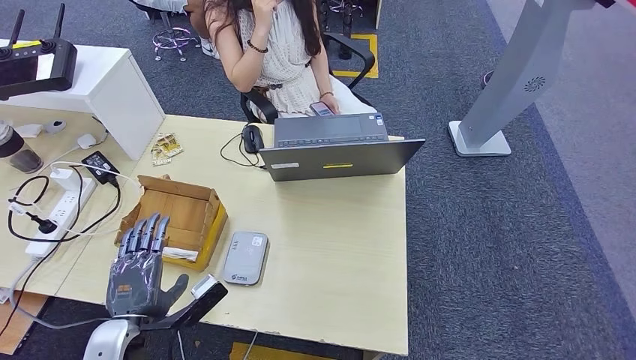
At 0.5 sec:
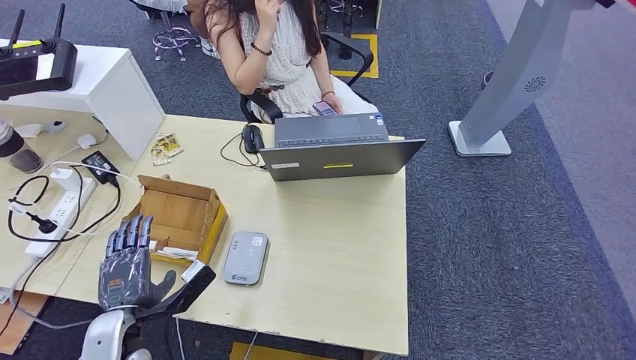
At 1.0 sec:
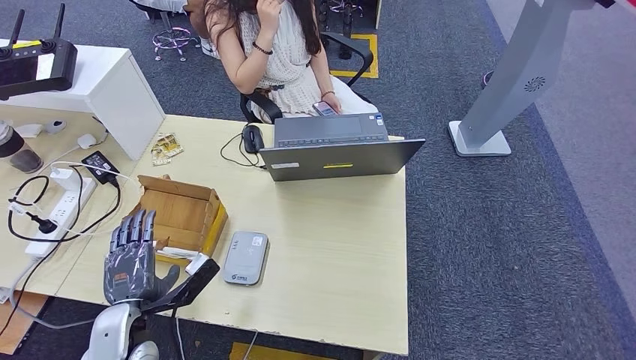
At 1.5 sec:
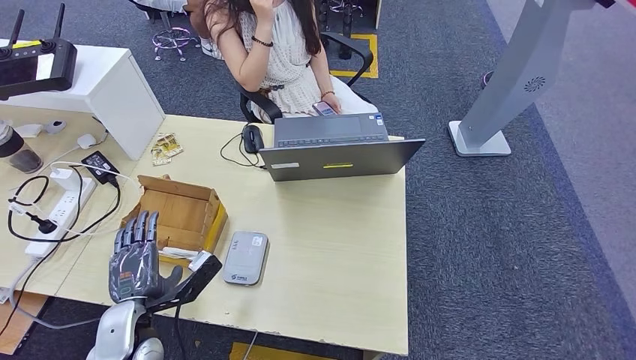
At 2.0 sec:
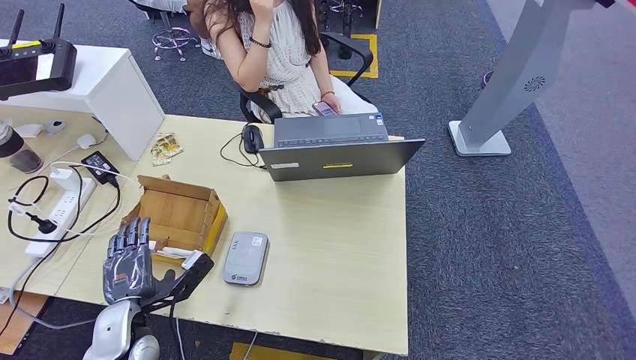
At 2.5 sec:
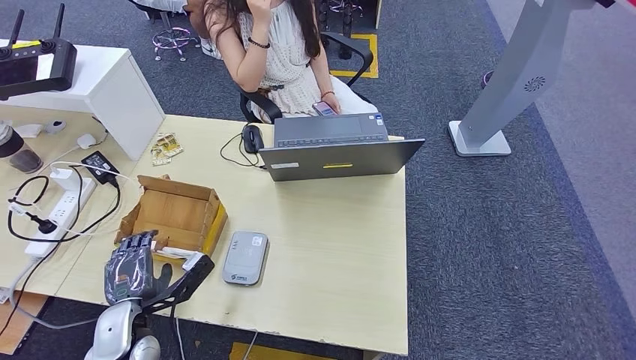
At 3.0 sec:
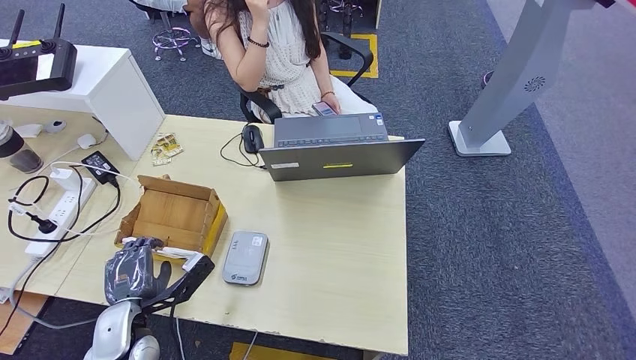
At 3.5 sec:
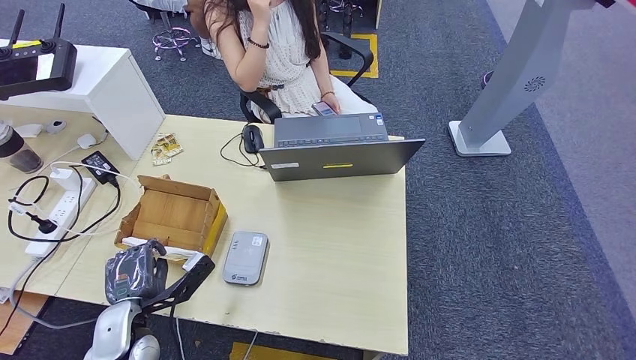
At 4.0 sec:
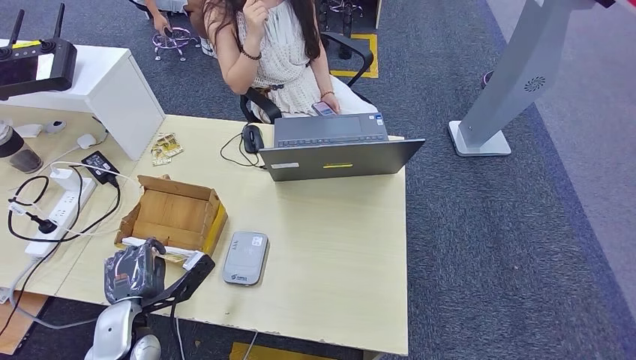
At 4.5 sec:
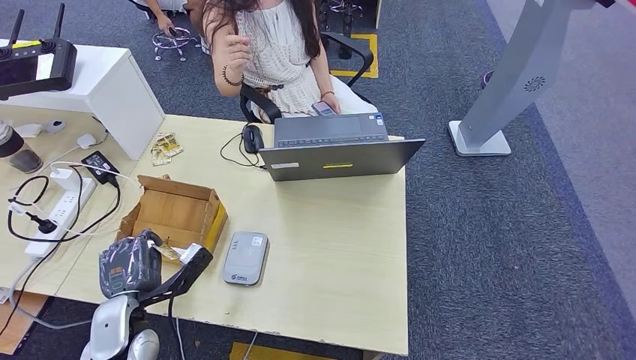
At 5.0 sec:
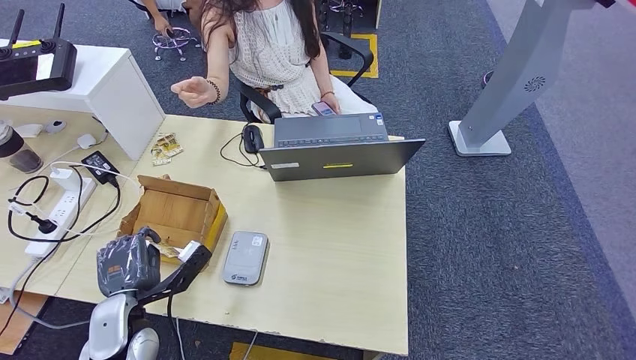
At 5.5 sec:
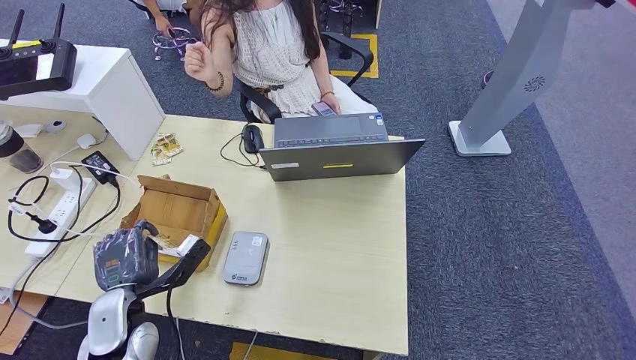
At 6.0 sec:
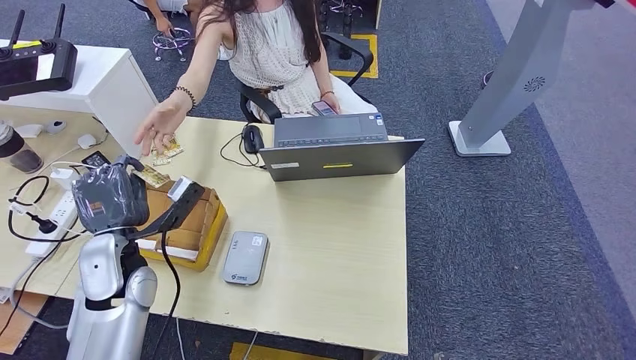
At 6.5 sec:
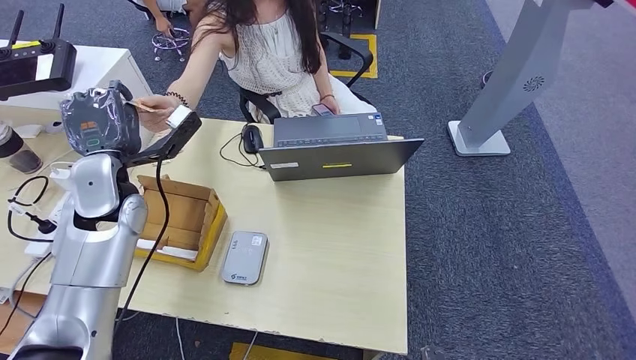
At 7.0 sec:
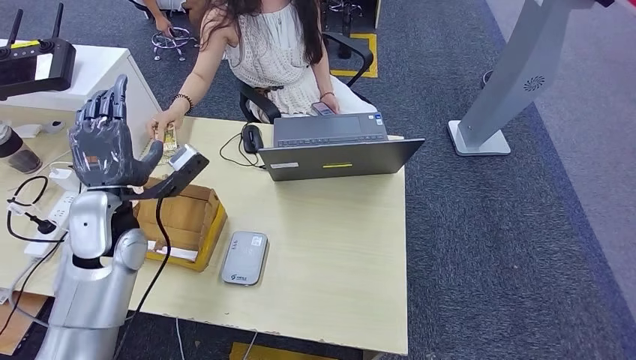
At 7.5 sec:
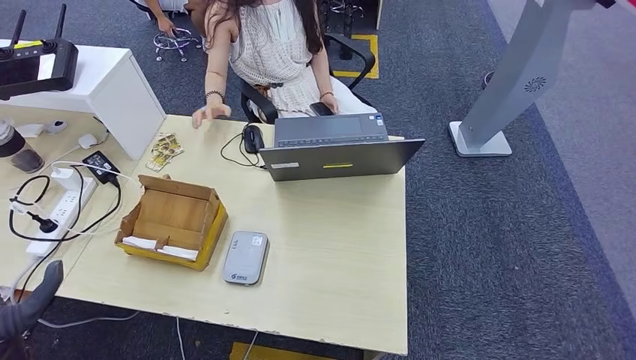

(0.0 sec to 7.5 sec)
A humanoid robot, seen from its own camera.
Step, 0.0 sec - 4.5 sec: Pick up the room key from the key card box.
Step, 5.0 sec - 7.5 sec: Hand the room key to the person.
0.0 sec - 2.0 sec: The hands make only small movements.
2.0 sec - 4.0 sec: Both hands stay put.
4.0 sec - 5.5 sec: The hands move only a little.
5.5 sec - 7.5 sec: The left hand goes some 10 cm to the left, and reaches about 15 cm forward, then returns.

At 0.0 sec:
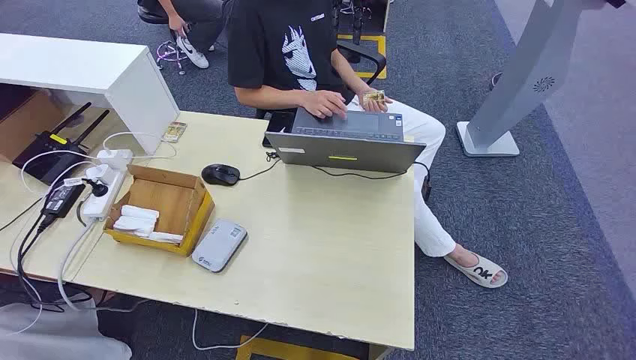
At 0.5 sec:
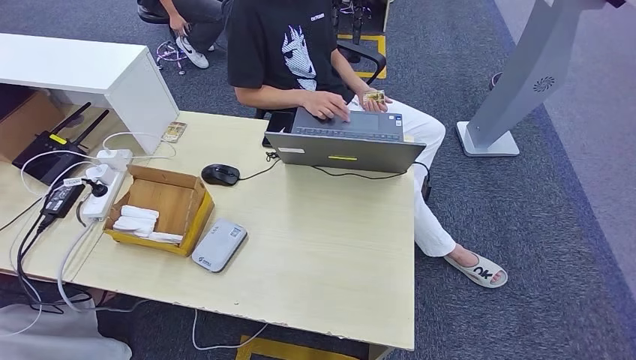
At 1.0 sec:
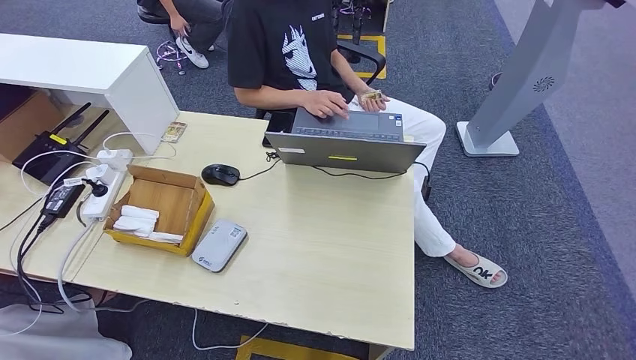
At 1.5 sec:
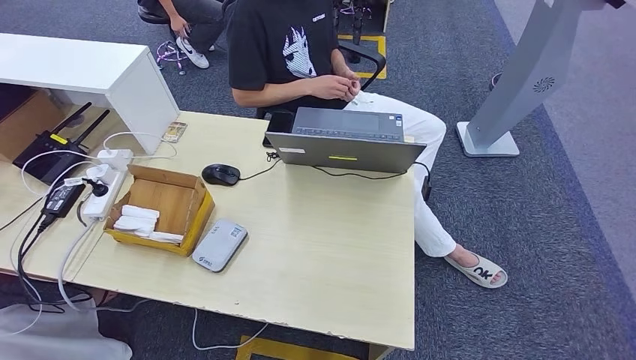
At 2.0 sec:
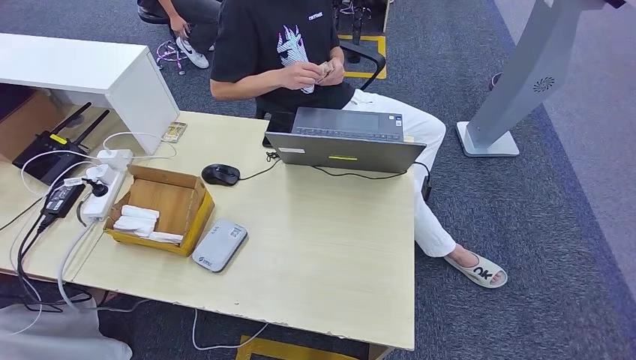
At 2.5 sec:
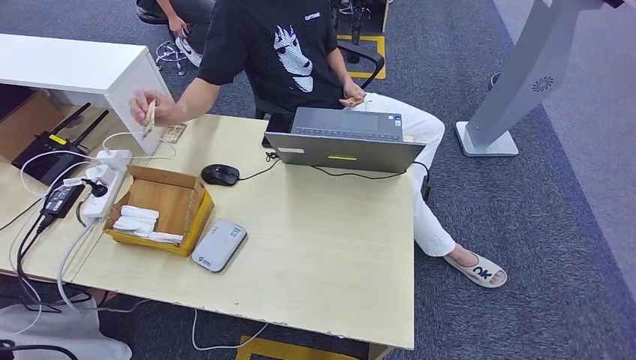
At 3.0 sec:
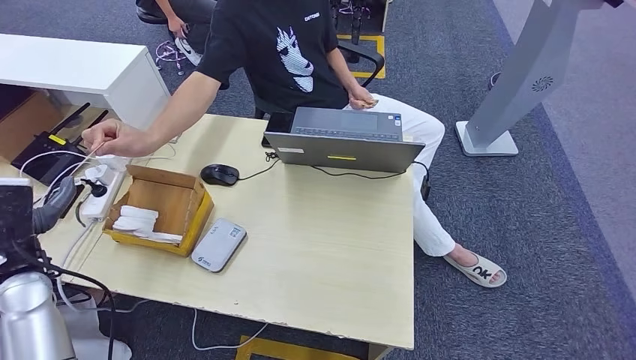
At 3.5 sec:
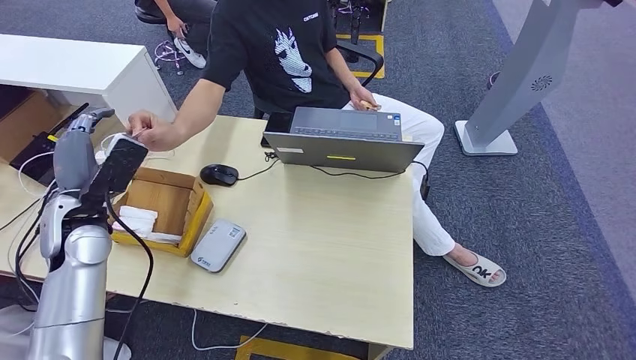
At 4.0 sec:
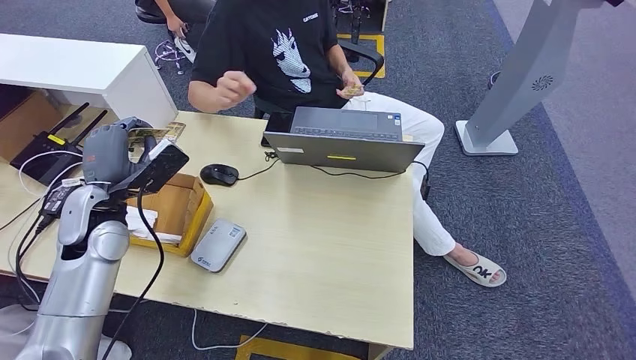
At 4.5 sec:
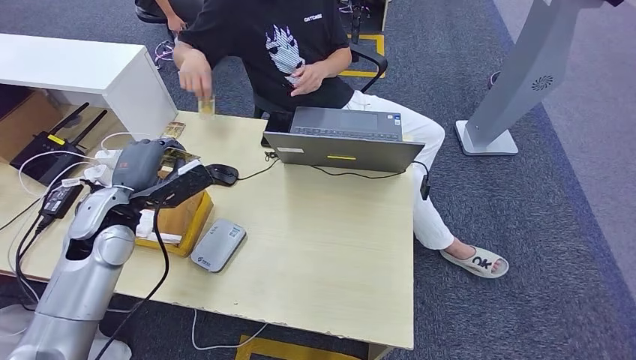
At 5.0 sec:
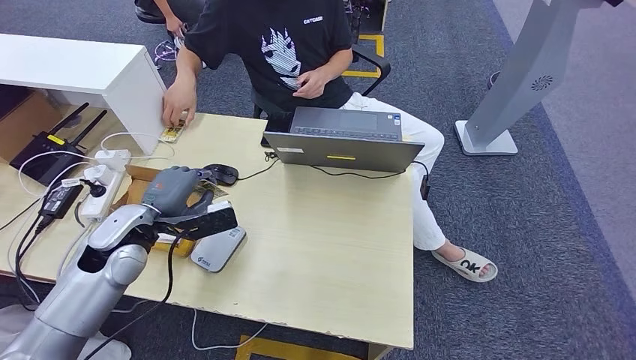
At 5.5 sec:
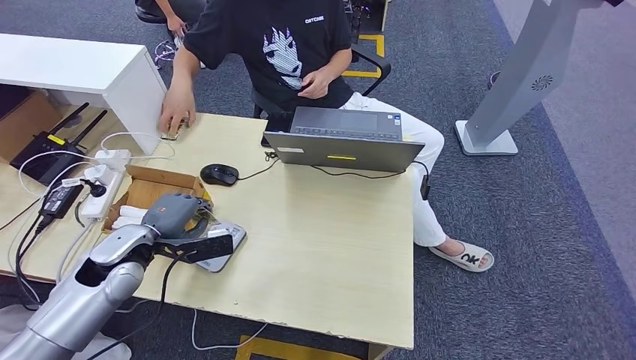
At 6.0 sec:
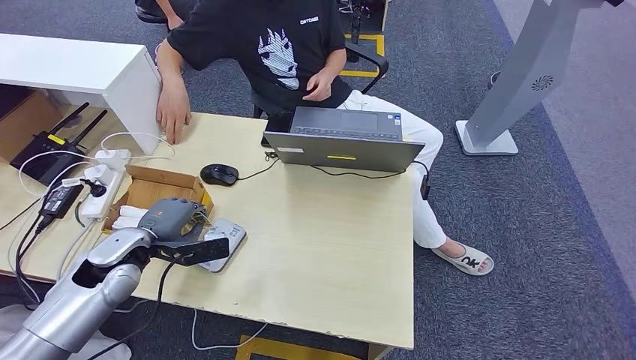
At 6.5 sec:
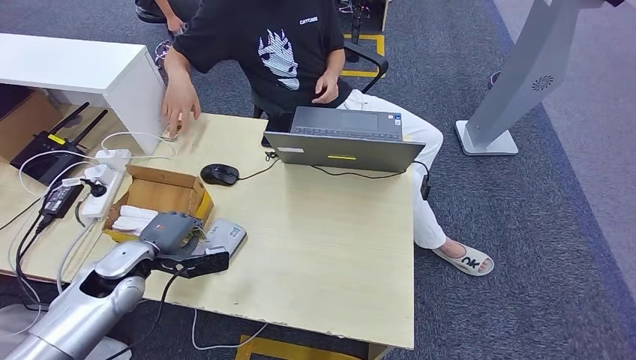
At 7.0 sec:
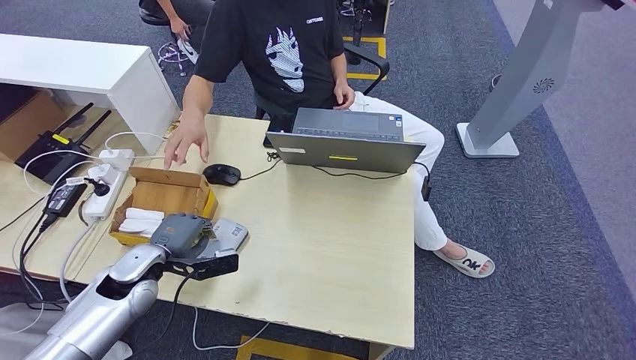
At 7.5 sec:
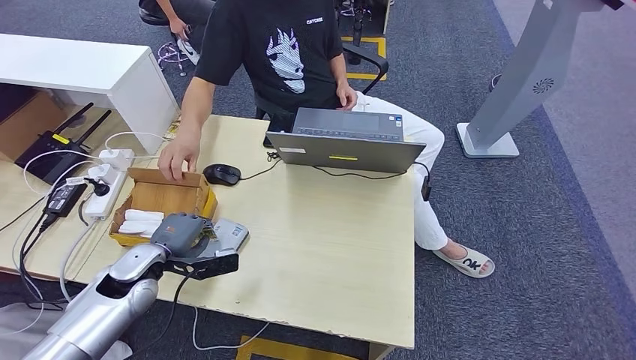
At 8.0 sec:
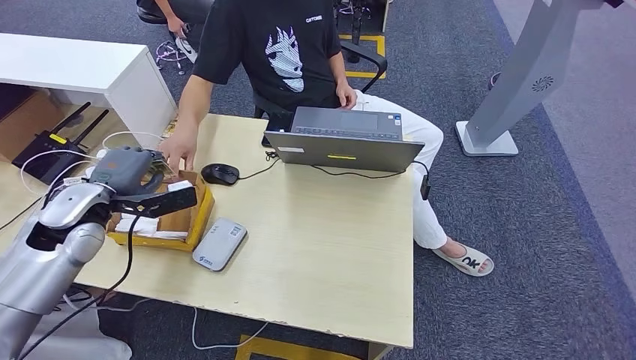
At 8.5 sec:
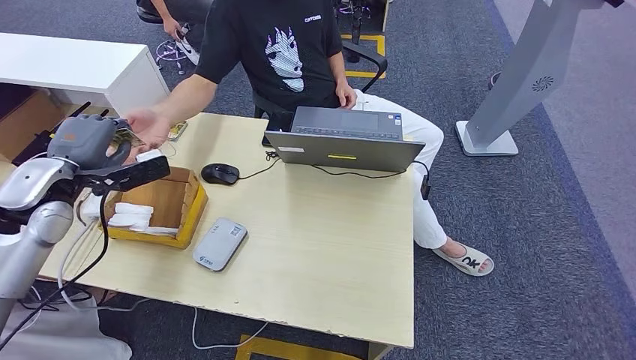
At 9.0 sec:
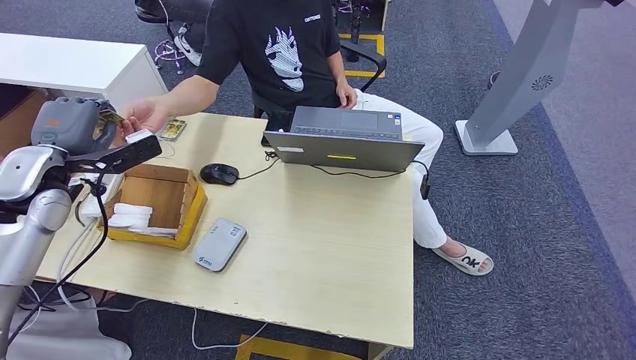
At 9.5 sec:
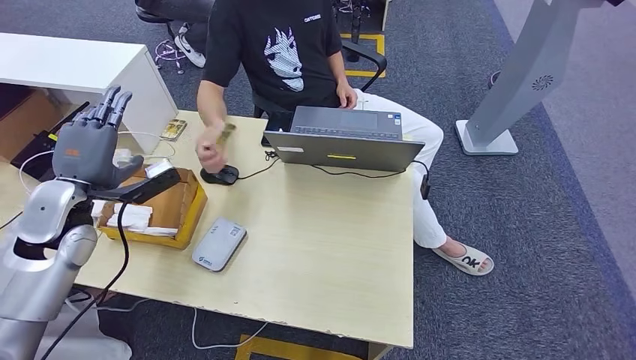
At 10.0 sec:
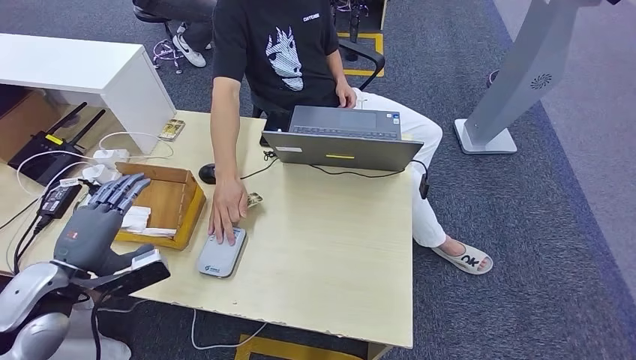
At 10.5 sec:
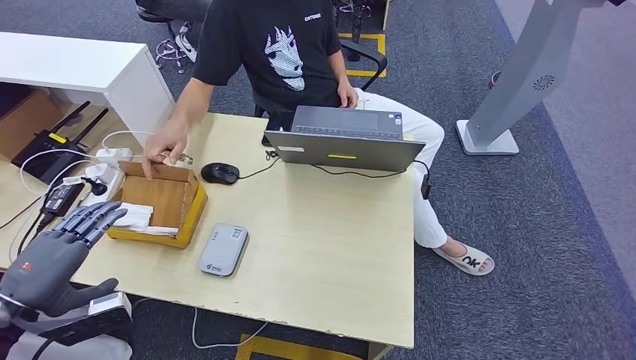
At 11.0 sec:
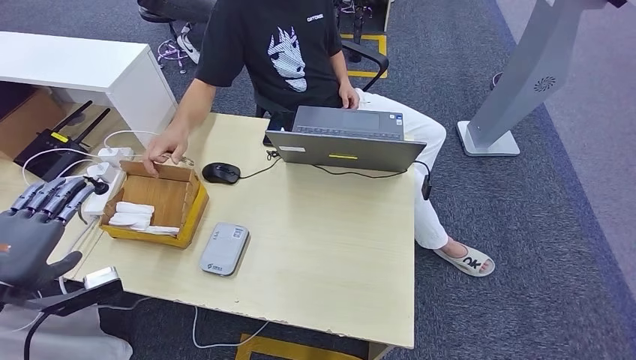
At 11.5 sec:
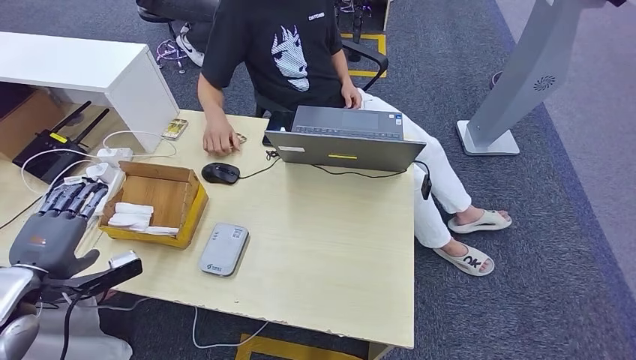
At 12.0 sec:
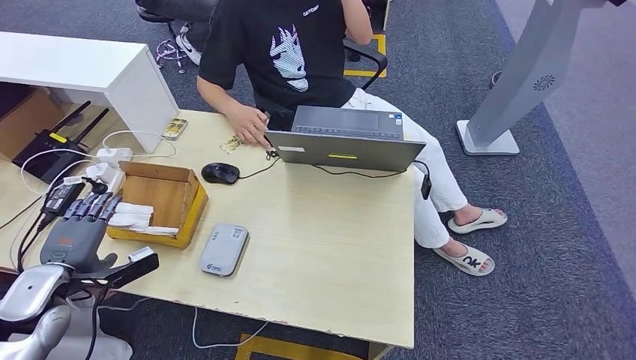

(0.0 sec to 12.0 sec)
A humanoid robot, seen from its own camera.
Step, 0.0 sec - 4.0 sec: Take the ID card from the person's hand.
Step, 4.5 sec - 6.5 sec: Place the ID card on the card reader.
Step, 7.0 sec - 10.5 sec: Hand the ID card to the person.
2.0 sec - 4.0 sec: The left hand moves forward and upward, approximately 35 cm.
4.0 sec - 6.0 sec: The left hand moves downward, some 10 cm.
6.0 sec - 8.0 sec: The left hand is displaced upward by some 5 cm.
8.0 sec - 10.0 sec: The left hand travels backward by some 15 cm.
10.0 sec - 12.0 sec: The left hand heads to the left and downward, covering roughly 10 cm.
